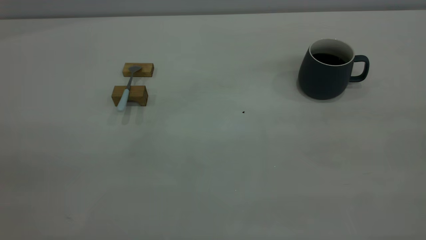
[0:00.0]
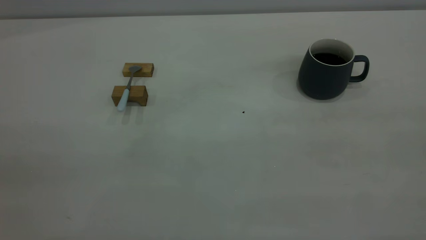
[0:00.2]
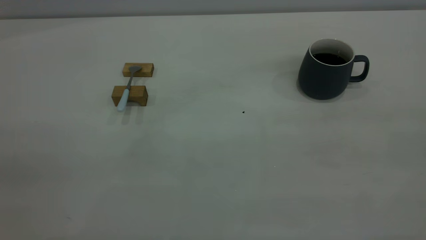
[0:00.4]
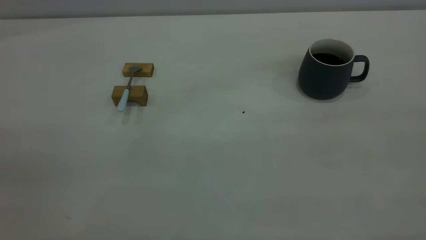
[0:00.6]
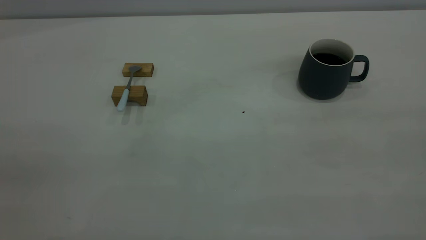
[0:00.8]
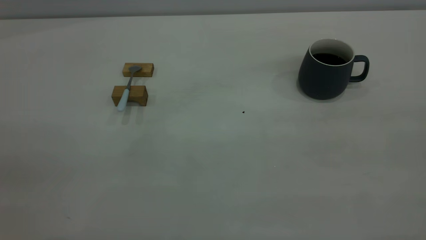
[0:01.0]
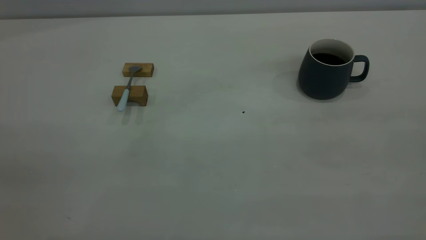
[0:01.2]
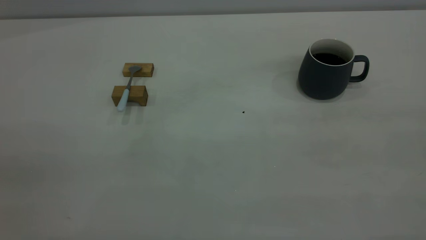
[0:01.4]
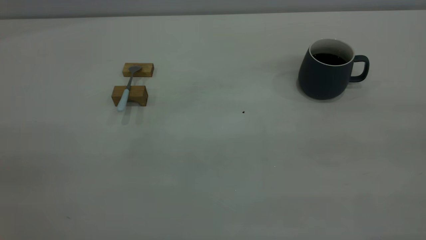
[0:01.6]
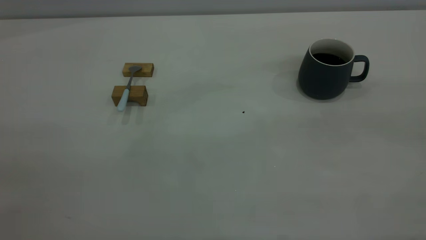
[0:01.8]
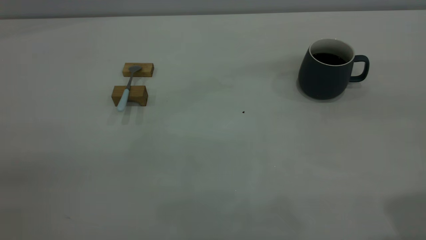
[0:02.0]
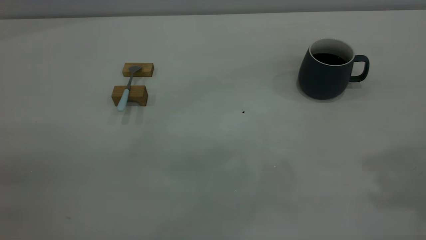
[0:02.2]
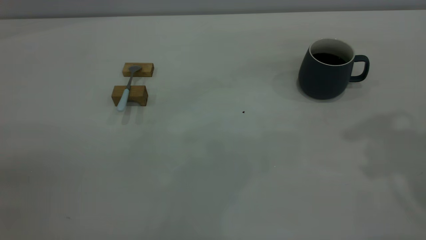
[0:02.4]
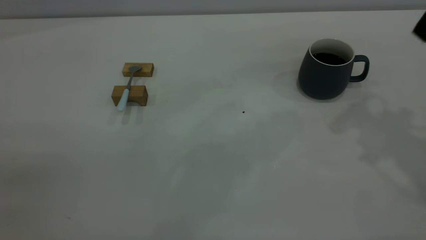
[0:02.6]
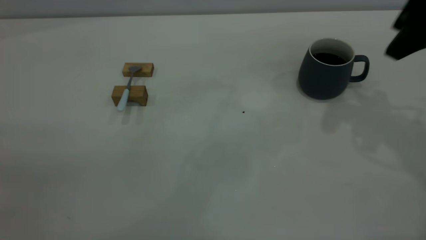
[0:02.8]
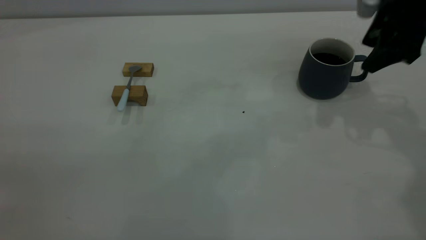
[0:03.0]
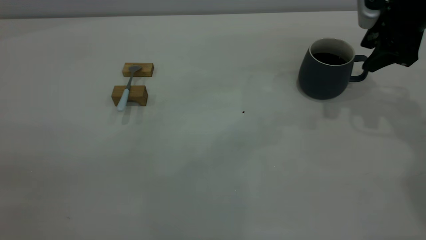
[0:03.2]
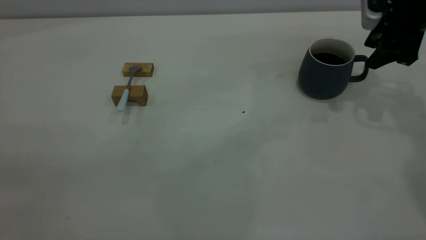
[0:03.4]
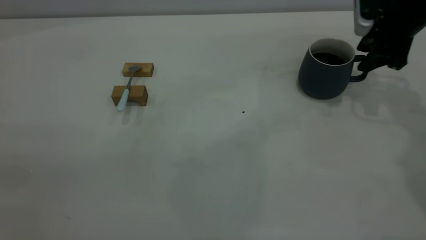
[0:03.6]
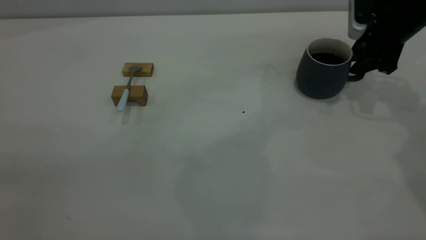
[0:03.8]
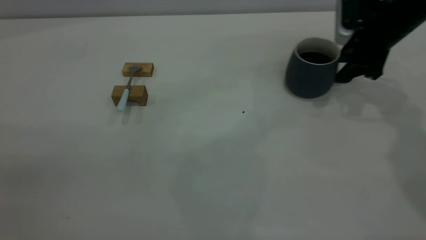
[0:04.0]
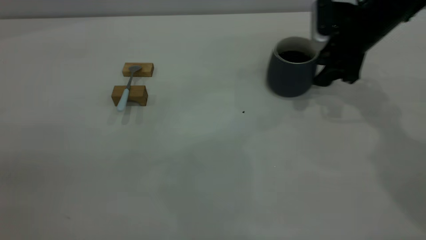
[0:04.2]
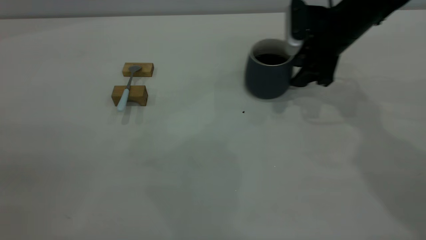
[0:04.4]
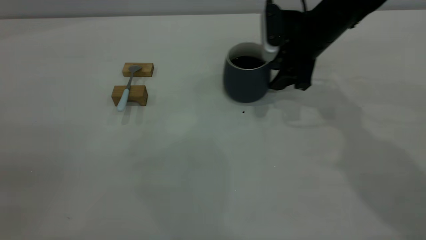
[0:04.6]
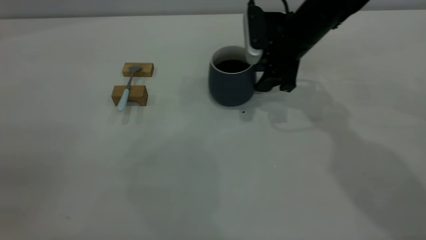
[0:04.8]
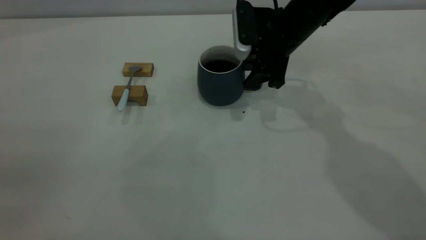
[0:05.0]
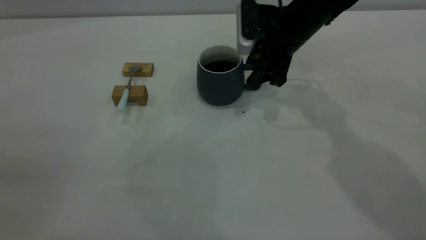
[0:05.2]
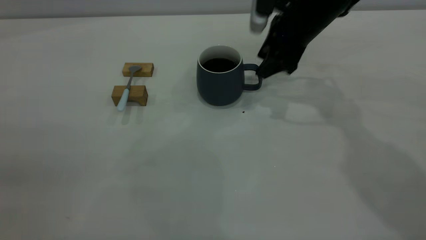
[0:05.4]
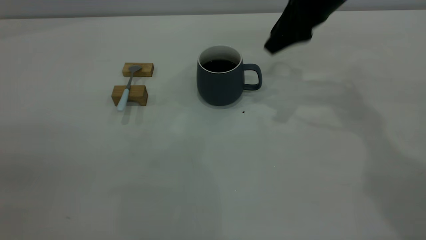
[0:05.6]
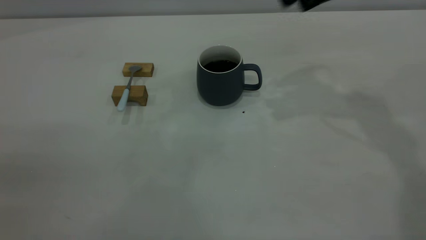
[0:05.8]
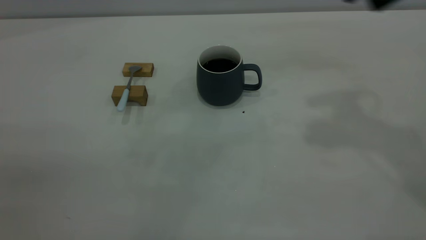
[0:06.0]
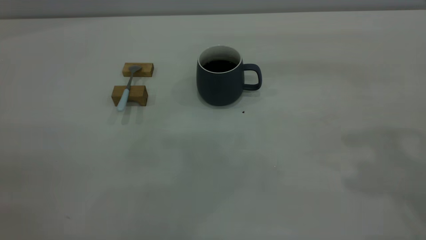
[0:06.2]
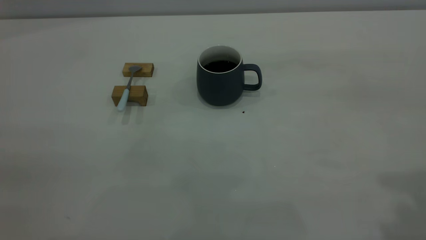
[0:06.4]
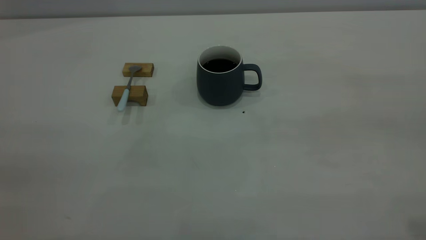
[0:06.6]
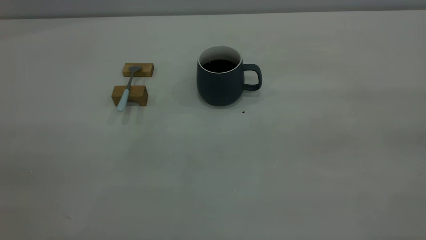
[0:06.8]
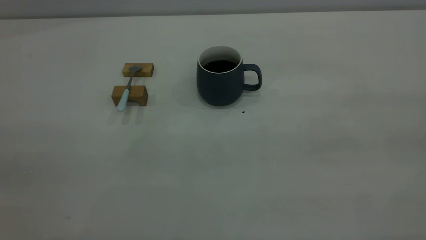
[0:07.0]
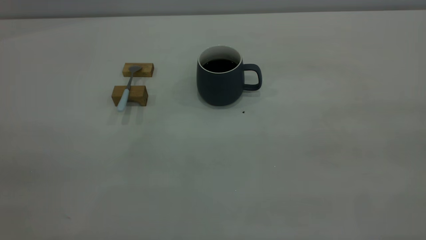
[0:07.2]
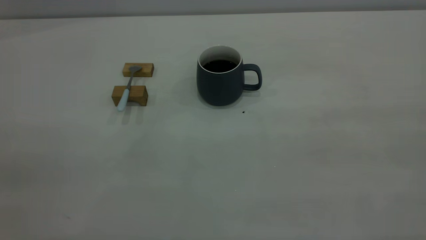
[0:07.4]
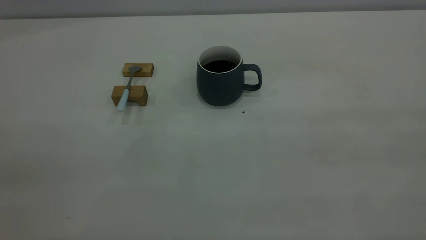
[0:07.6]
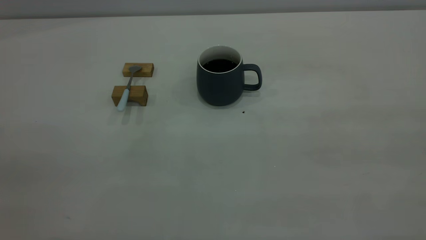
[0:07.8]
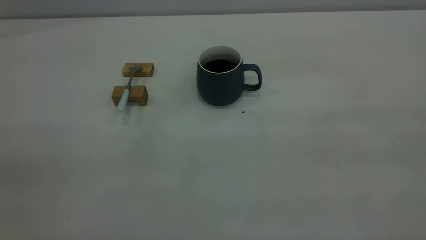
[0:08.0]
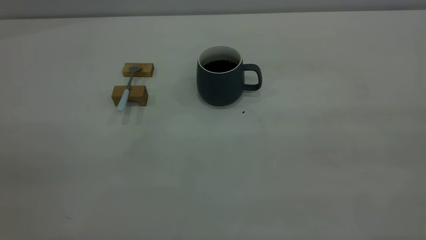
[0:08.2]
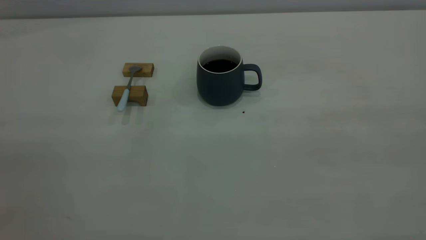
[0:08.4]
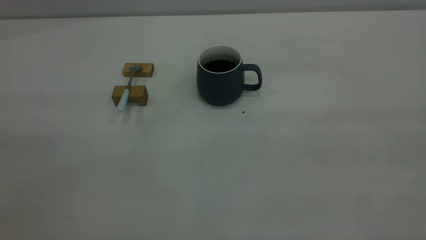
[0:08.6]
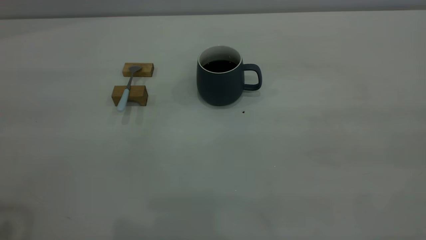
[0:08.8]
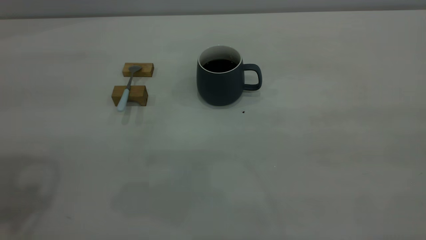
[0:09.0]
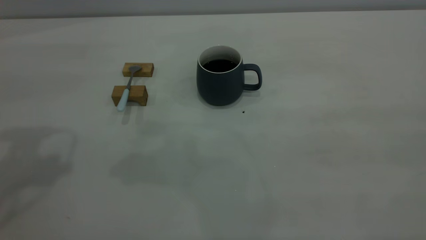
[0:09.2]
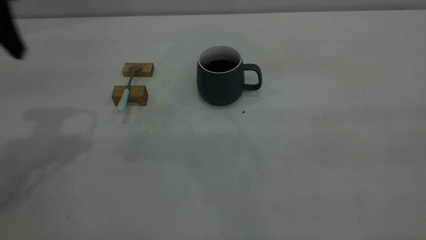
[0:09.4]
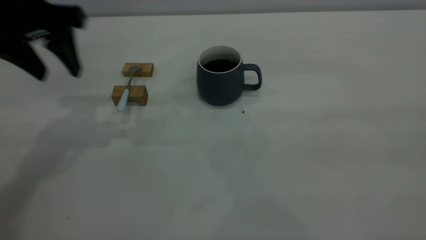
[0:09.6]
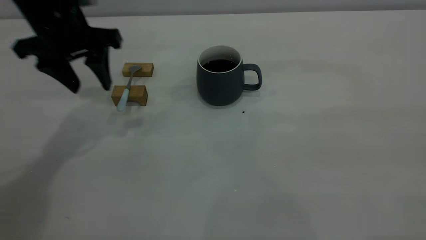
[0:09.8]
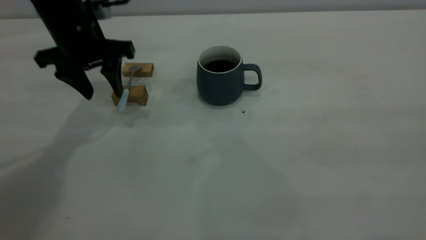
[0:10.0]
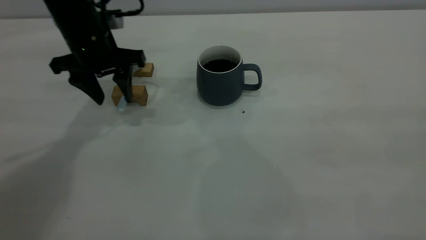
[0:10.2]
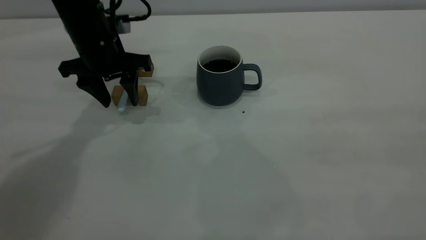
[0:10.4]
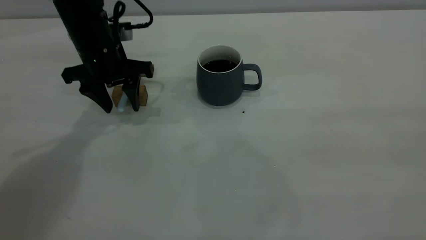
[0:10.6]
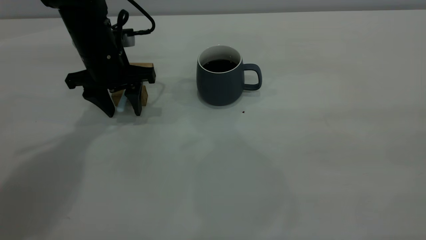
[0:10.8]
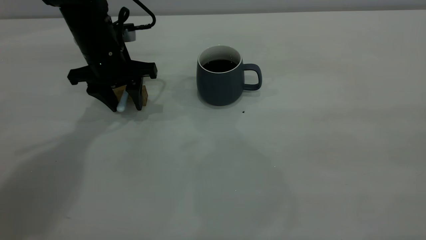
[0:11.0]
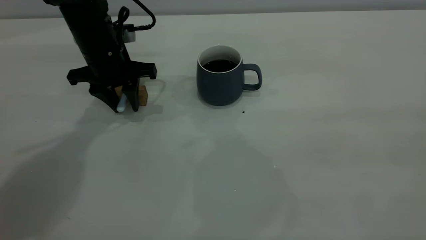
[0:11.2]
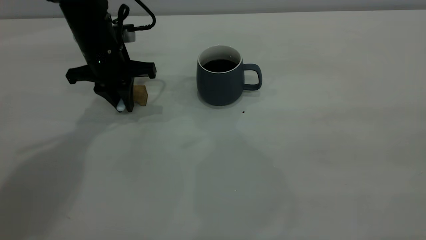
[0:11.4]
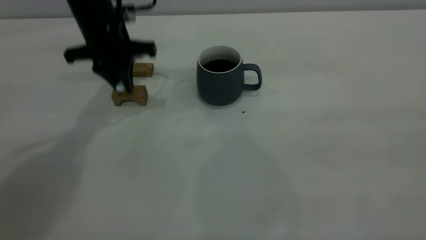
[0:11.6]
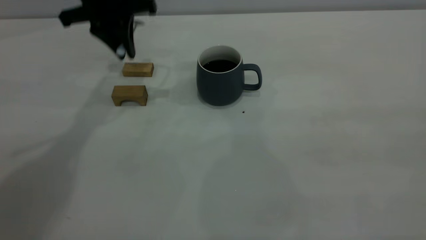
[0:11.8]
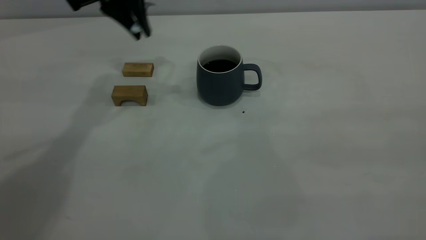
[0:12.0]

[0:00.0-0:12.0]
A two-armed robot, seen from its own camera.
Step, 0:00.0 to 0:05.6: Move the cup with coffee to the center of view.
Step, 0:05.8 to 0:11.6: Pick up the spoon.
0:01.6 to 0:03.0: The right gripper goes approximately 40 cm forward and downward, and opens up.
0:03.0 to 0:04.4: The right gripper travels to the left, downward and forward by some 15 cm, and closes up.
0:04.4 to 0:06.0: The right gripper is displaced upward and backward by roughly 25 cm.
0:09.0 to 0:10.4: The left gripper is displaced downward, forward and to the right by about 30 cm.
0:10.4 to 0:12.0: The left gripper is displaced upward by roughly 10 cm, and closes.

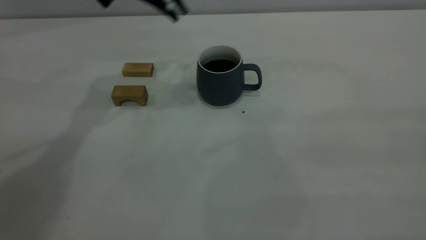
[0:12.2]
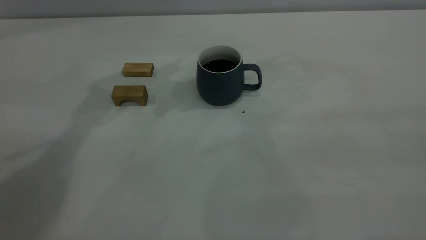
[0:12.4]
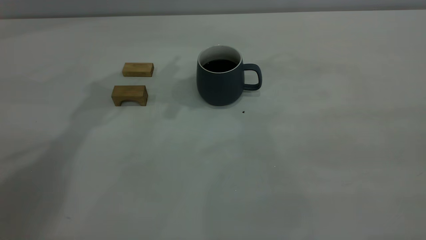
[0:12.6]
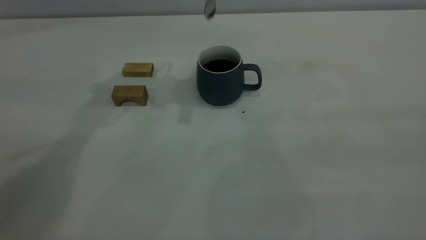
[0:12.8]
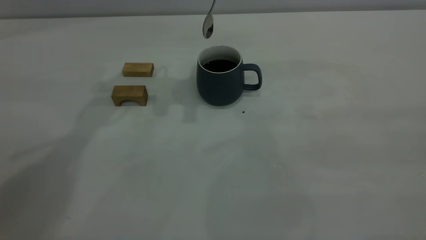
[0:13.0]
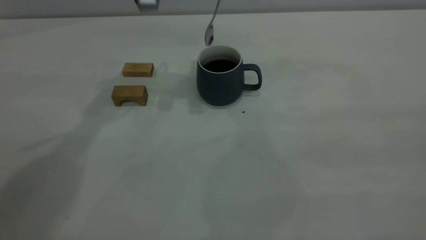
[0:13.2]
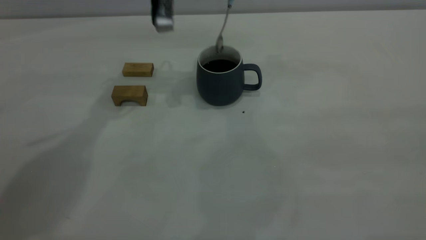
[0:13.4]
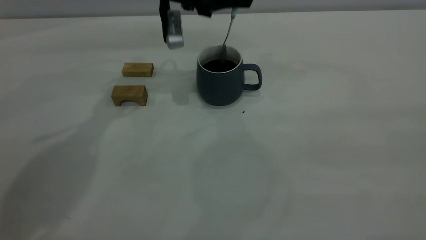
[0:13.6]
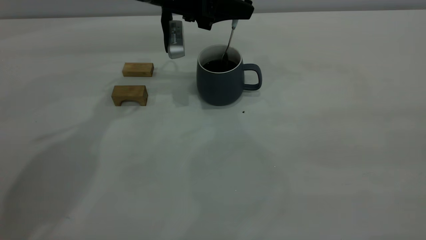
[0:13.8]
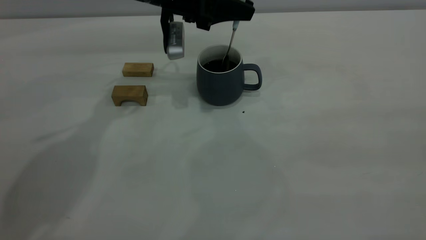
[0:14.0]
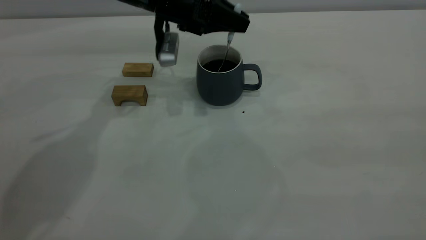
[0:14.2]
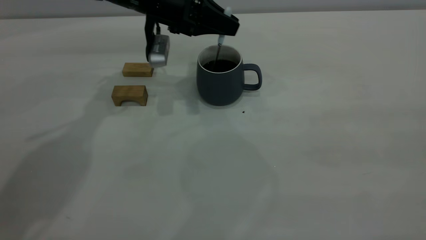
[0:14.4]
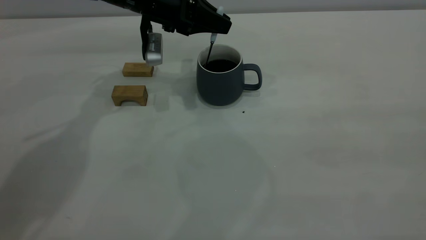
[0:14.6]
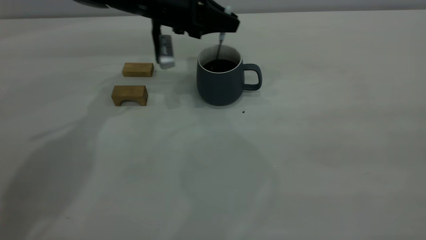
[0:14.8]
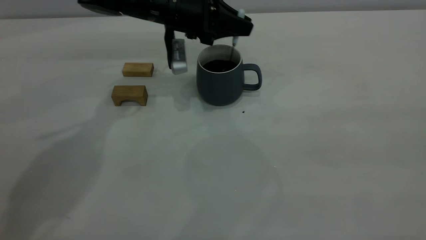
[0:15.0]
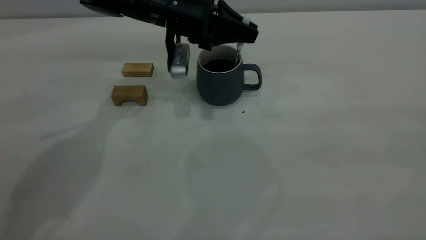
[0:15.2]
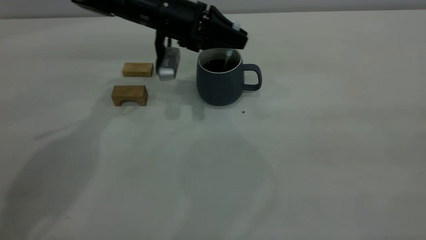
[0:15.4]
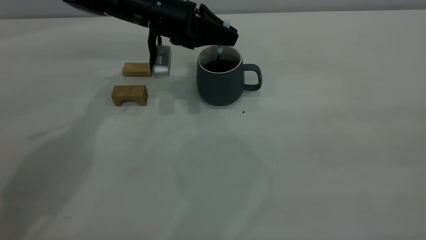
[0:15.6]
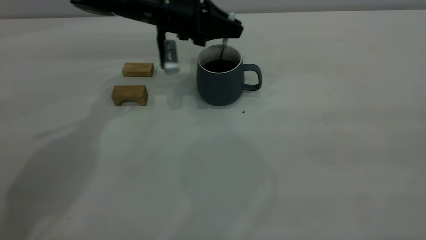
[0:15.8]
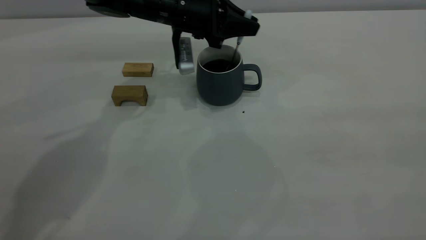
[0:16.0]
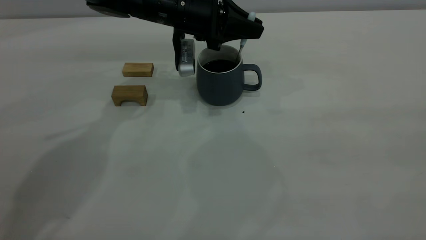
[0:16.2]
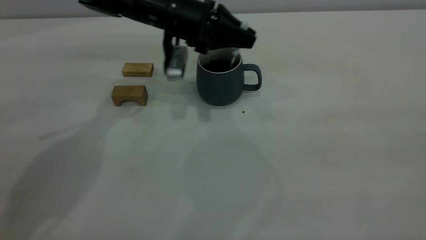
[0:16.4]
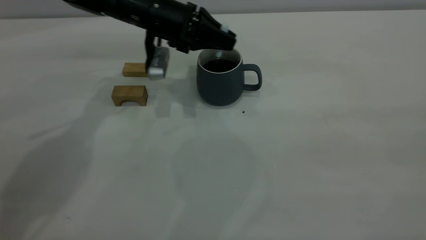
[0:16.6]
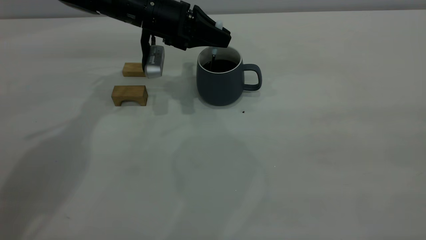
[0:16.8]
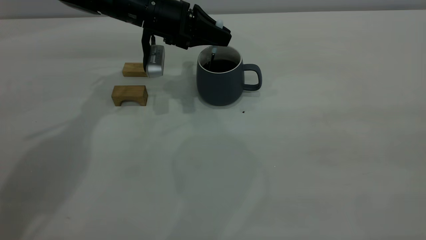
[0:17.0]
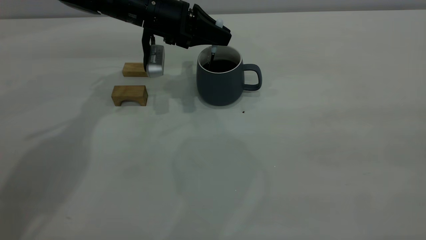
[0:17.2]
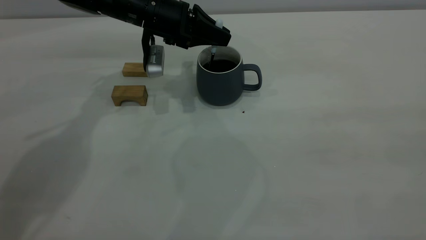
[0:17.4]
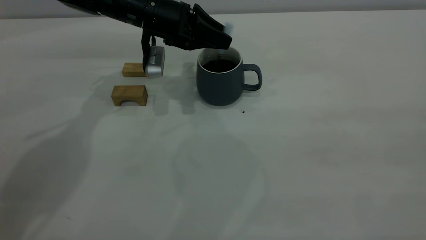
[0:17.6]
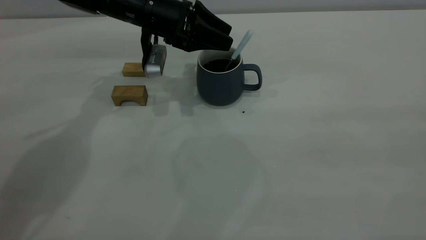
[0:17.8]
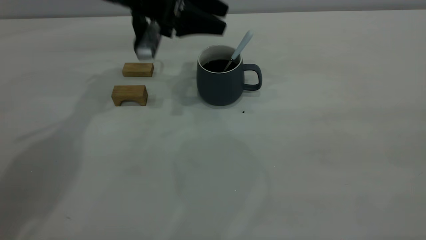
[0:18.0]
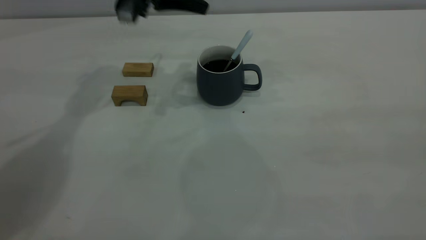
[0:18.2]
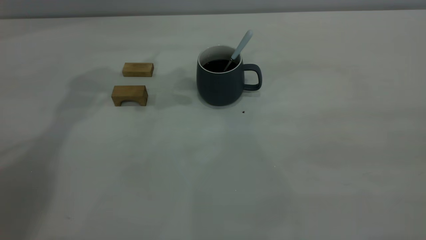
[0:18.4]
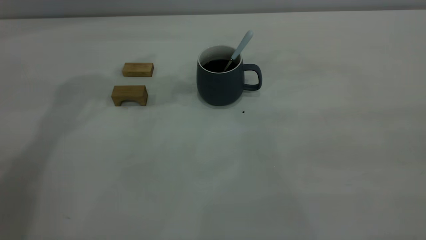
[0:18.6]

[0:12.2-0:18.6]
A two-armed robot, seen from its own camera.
Step, 0:12.2 to 0:18.0: Stir the coffee in the cup.
0:12.2 to 0:13.8: The left gripper goes some 10 cm downward.
0:13.8 to 0:17.0: The grippers make only small movements.
0:17.0 to 0:18.6: The left gripper goes roughly 25 cm upward, and opens.
